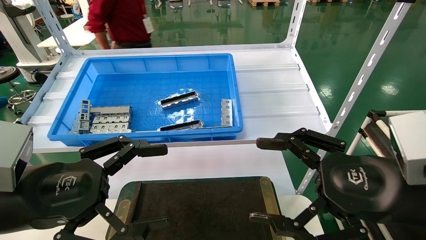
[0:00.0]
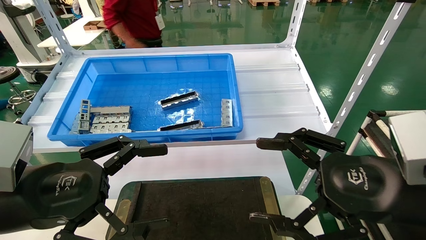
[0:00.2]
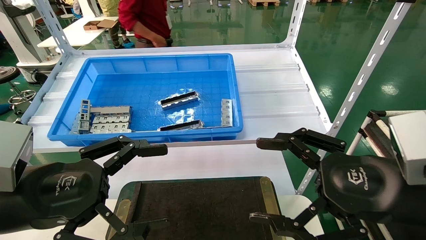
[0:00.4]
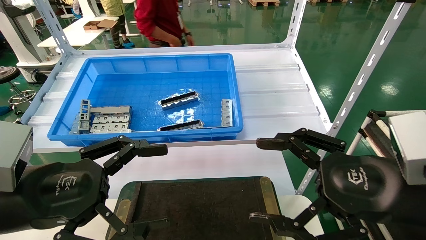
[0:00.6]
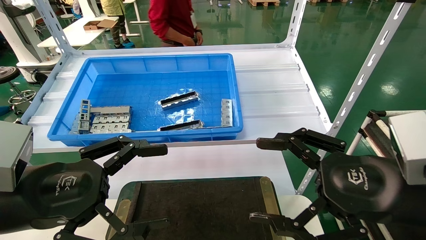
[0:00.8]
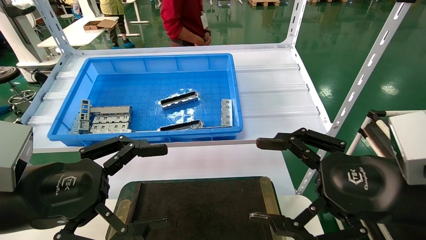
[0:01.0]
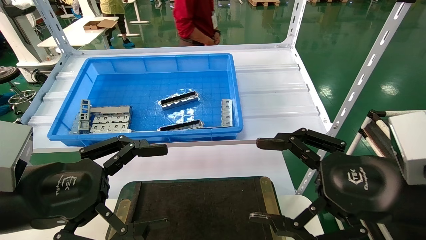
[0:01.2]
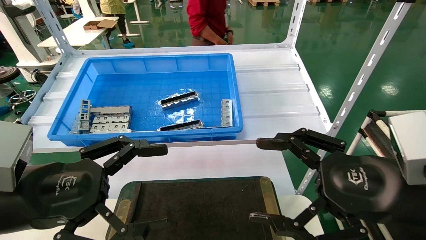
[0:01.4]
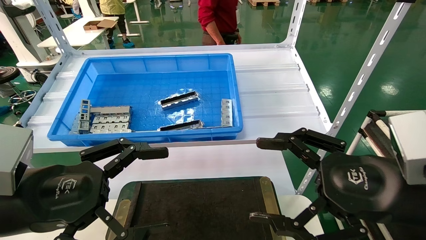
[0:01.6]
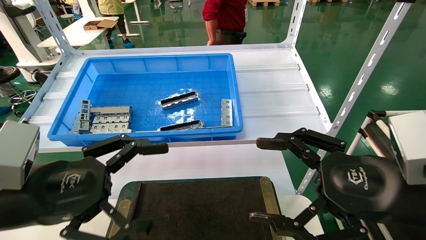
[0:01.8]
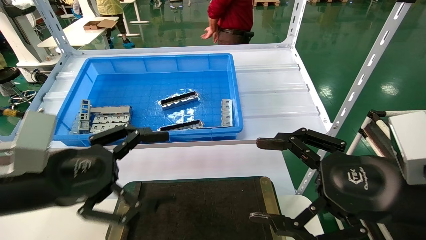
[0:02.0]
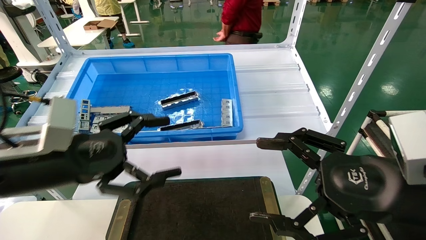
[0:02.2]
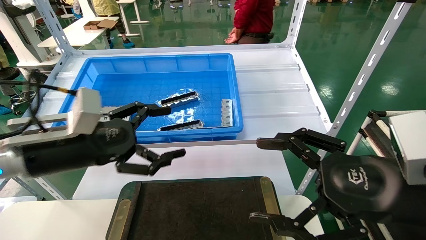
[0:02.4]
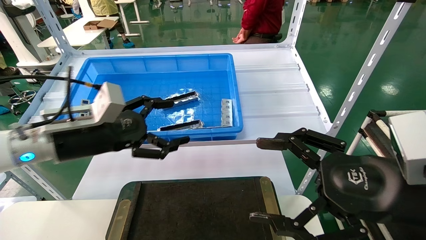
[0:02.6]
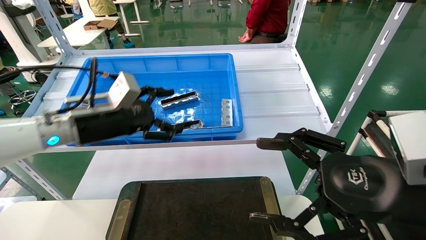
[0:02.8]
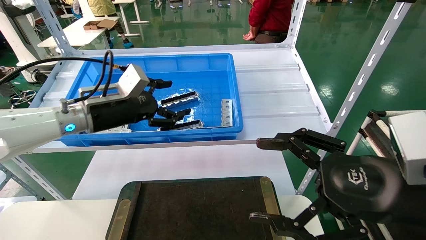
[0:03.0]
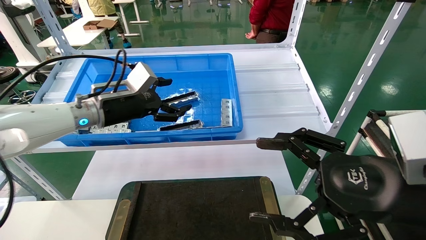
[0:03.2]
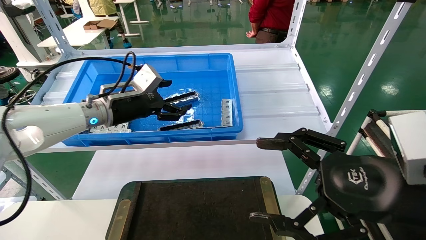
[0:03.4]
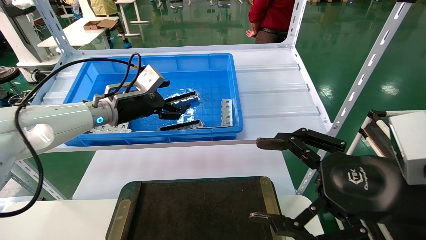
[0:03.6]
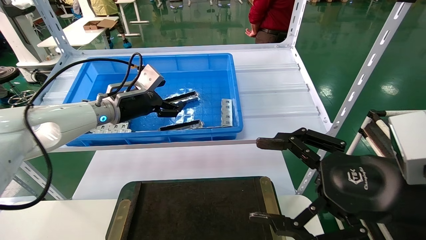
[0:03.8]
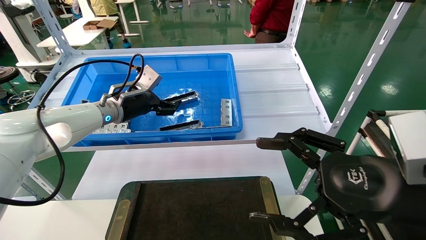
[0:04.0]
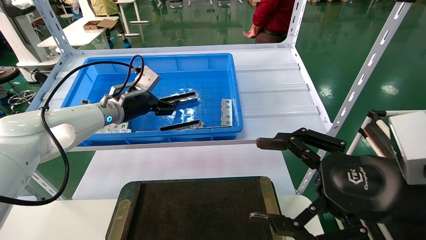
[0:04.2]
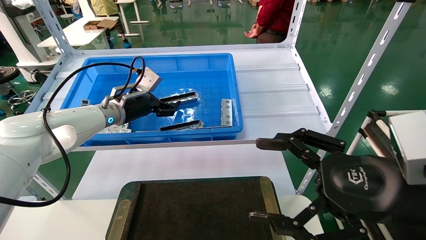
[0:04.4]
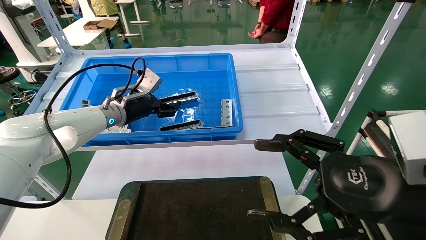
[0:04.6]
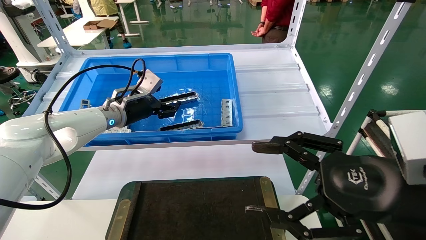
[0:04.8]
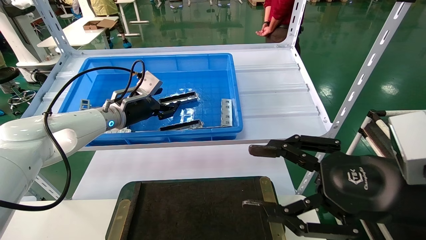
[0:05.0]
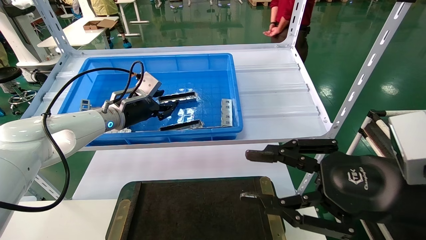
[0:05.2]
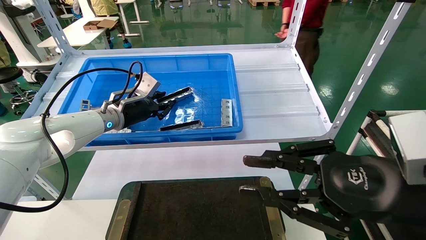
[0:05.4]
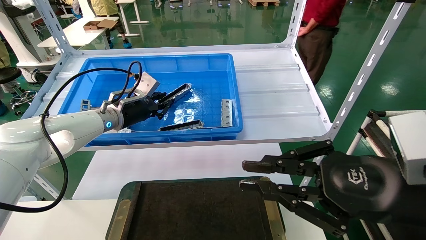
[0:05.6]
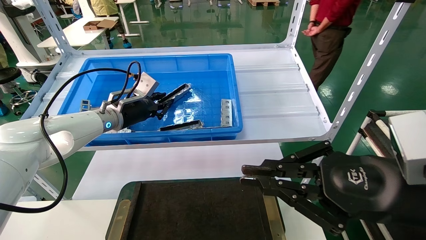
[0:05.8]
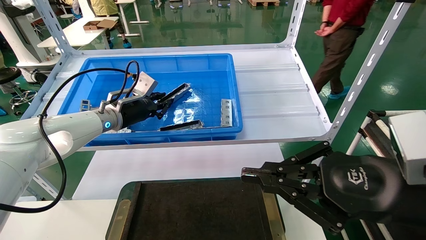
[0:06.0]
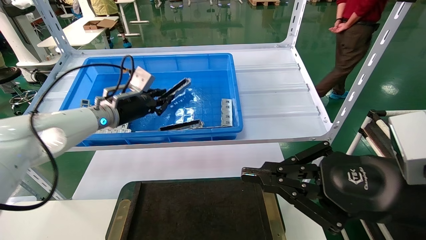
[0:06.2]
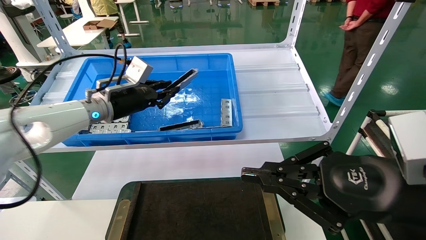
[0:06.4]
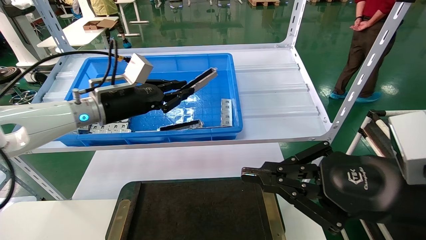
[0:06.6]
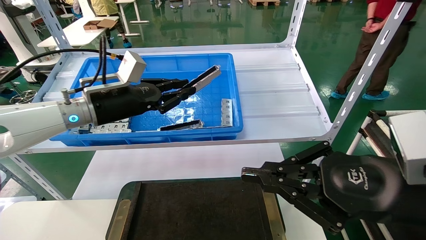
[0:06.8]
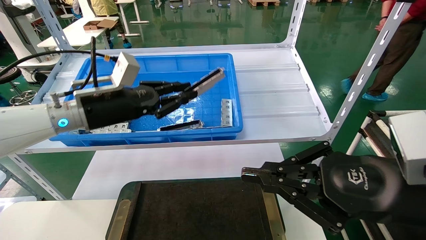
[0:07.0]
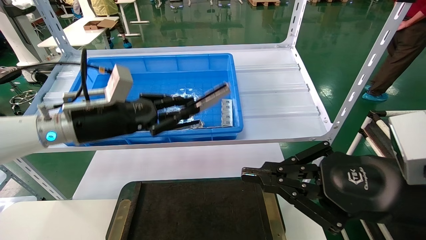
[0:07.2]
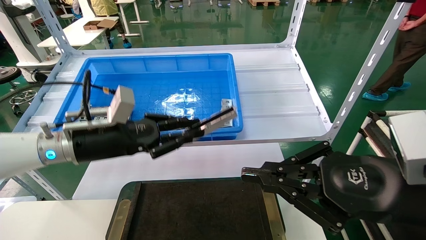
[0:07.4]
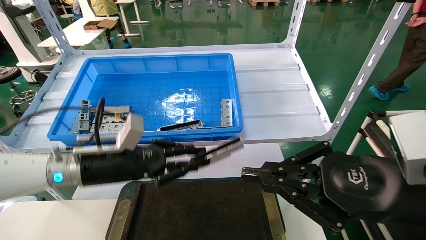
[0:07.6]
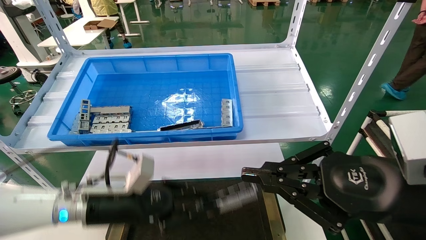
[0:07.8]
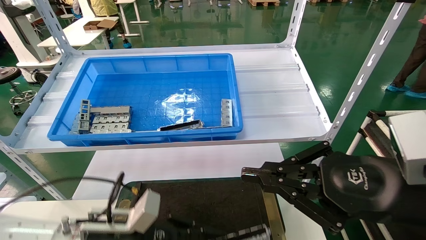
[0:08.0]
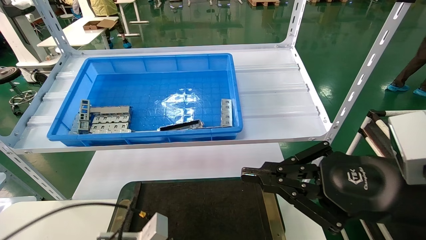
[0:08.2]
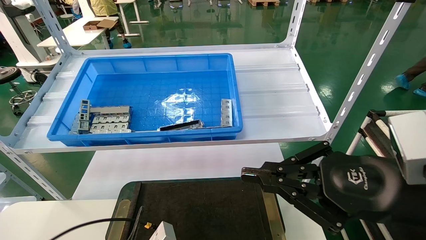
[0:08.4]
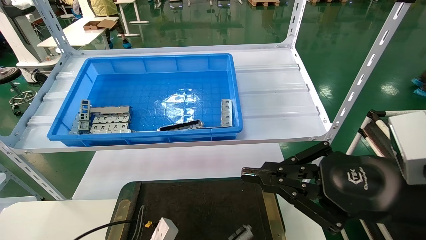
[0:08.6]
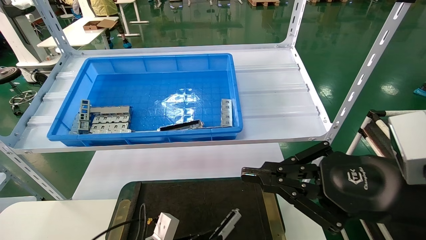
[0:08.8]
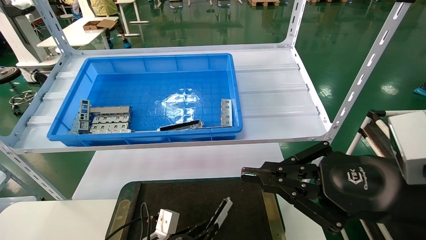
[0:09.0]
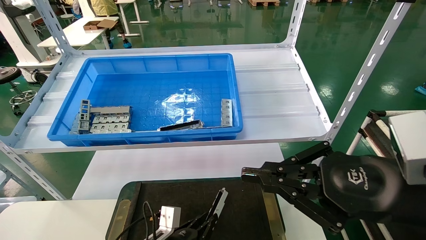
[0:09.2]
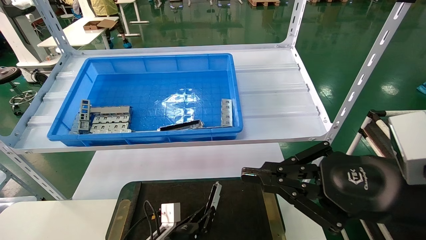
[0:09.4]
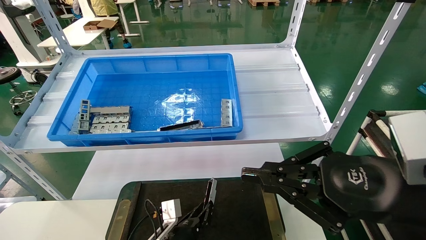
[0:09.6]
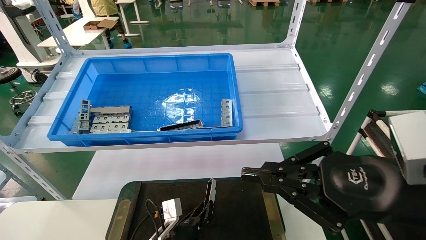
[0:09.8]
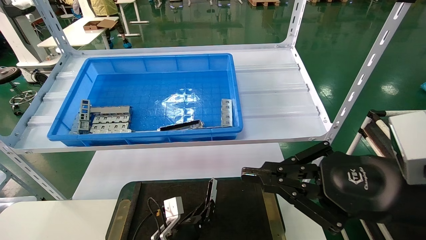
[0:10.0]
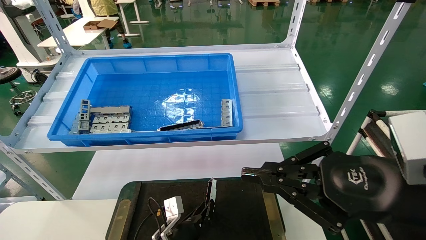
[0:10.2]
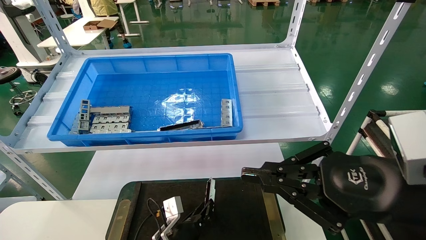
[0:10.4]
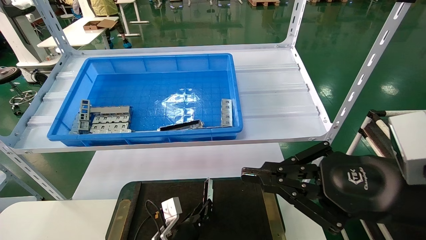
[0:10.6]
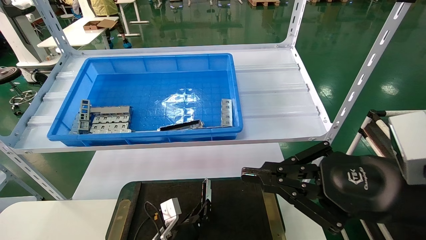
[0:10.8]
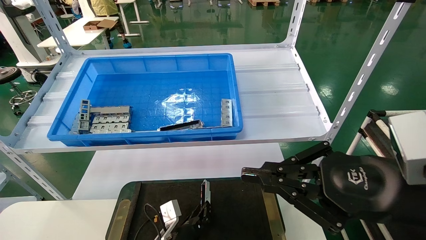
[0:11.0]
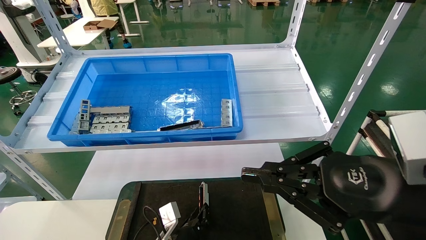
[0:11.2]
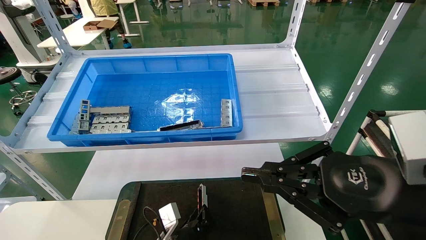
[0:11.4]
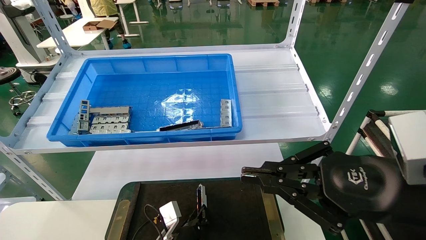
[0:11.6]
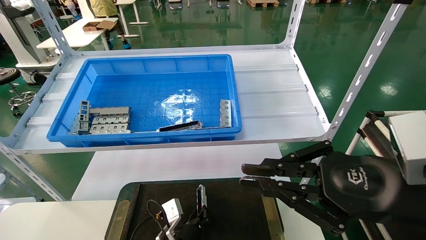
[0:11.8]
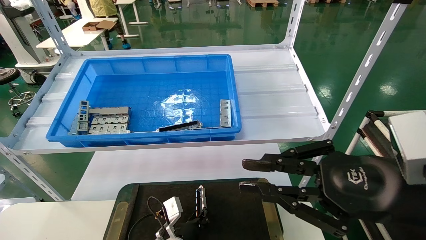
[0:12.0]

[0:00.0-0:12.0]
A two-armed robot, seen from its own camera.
Task of the whole recording: Grasp the part with one hand and place it on the black container.
Step, 0:01.8 to 0:05.6: Pick up the front USB bracket from the feeding area.
Step, 0:05.8 to 0:12.0: Place the front USB bracket into the box.
0:00.0 to 0:01.6: Both grippers stay put.
0:01.6 to 0:03.0: The left gripper heads forward, covering approximately 20 cm.
0:03.0 to 0:04.4: The left gripper goes about 10 cm forward.
0:04.4 to 0:06.0: The right gripper closes up, while the left gripper closes its fingers.
0:06.0 to 0:07.6: The left gripper is displaced backward and downward by approximately 15 cm.
0:07.6 to 0:09.0: The left gripper goes about 25 cm downward.
0:09.0 to 0:10.4: The left gripper heads forward and to the right, covering some 10 cm.
0:10.4 to 0:12.0: There are only small adjustments of the grippers.

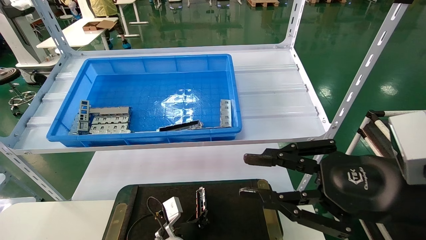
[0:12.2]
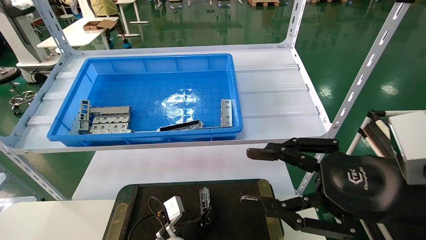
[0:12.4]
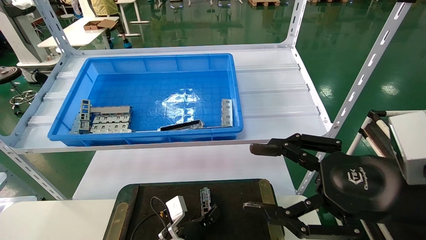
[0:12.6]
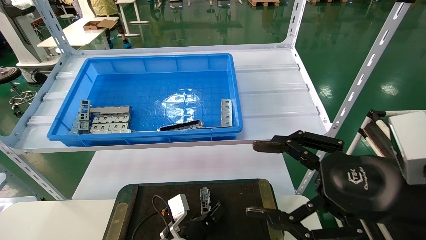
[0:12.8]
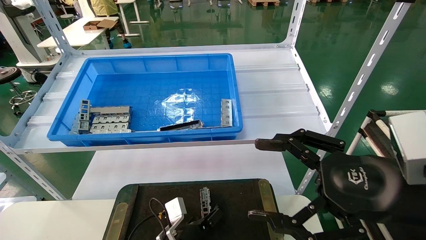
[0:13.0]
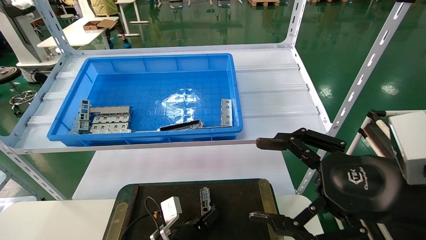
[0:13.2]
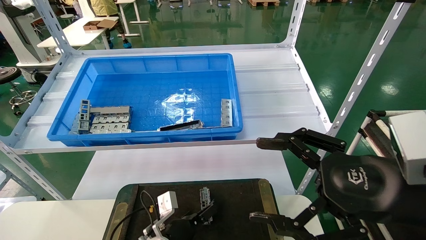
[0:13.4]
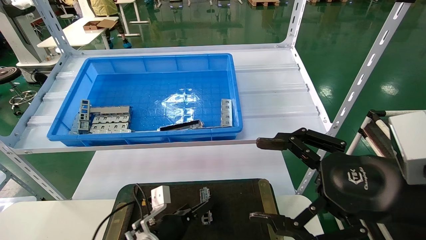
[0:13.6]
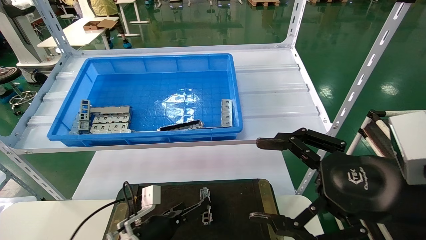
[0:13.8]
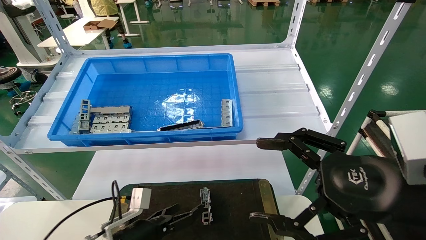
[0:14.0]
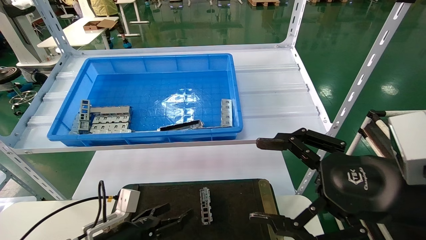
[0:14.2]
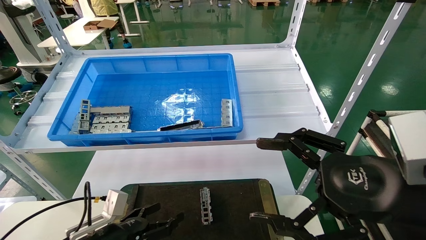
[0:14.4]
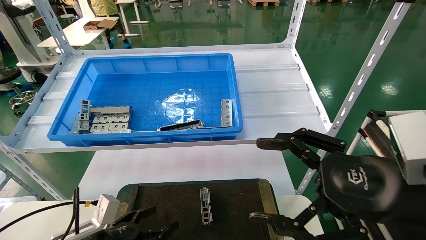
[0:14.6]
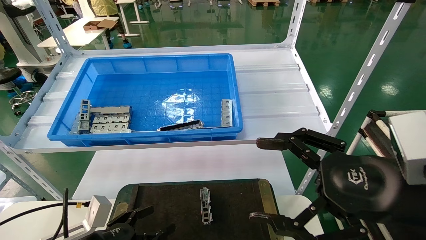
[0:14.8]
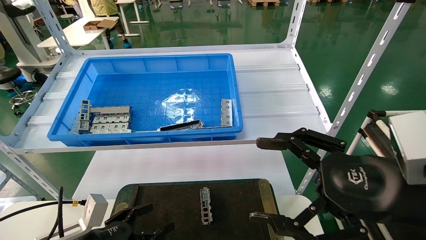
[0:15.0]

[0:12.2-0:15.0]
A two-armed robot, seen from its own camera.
Task of the whole recording: Grasp the part with one hand and place it on the black container.
0:12.2 to 0:13.6: The right gripper opens up; the left gripper travels to the left by roughly 5 cm, and opens up.
0:13.6 to 0:15.0: The left gripper shifts about 15 cm to the left and backward.
